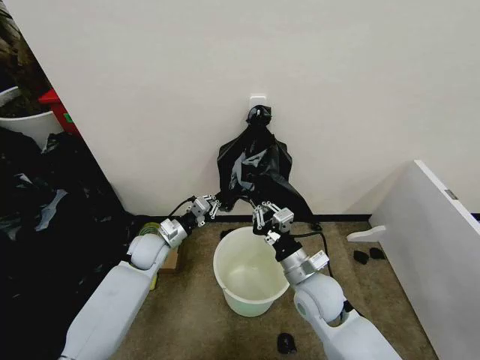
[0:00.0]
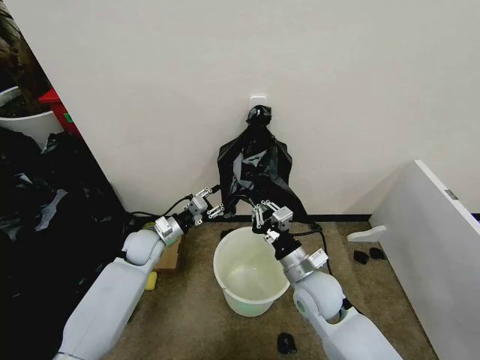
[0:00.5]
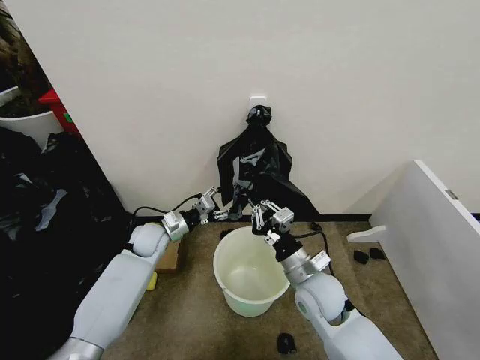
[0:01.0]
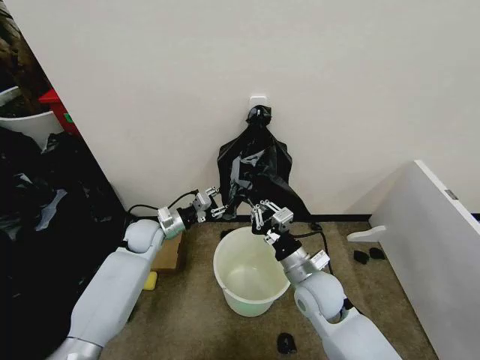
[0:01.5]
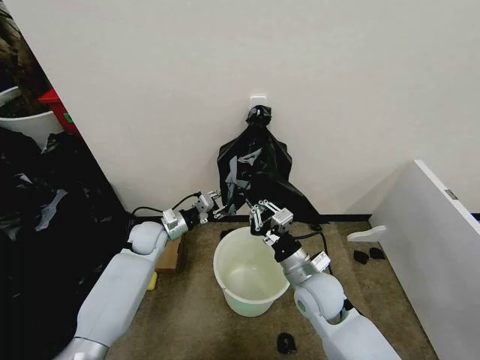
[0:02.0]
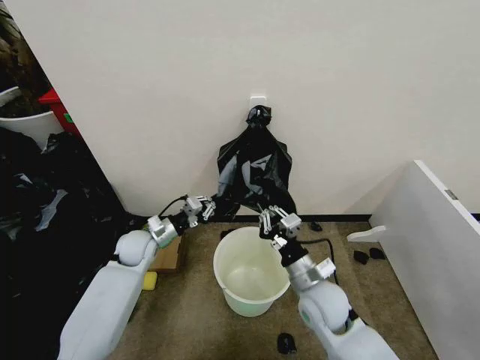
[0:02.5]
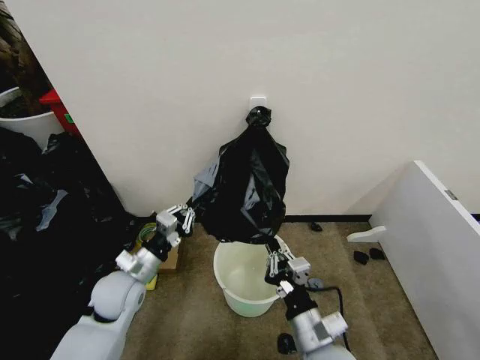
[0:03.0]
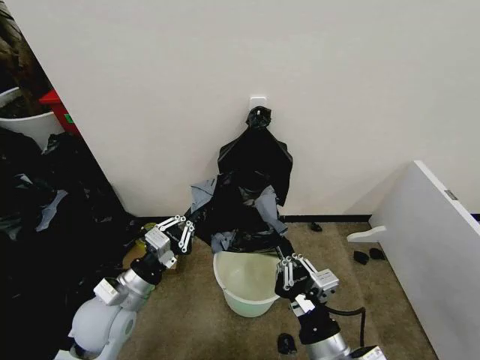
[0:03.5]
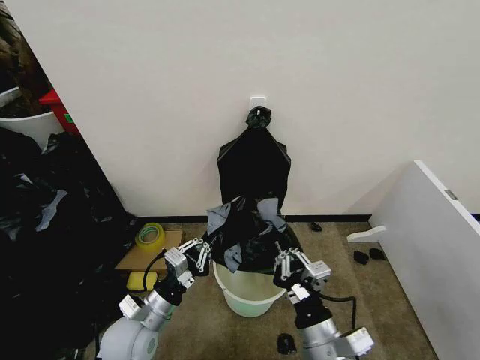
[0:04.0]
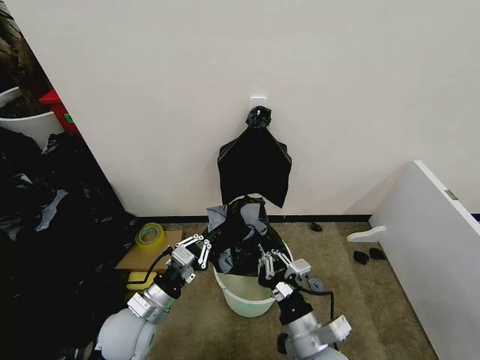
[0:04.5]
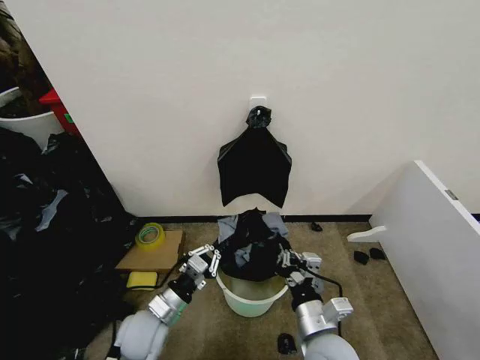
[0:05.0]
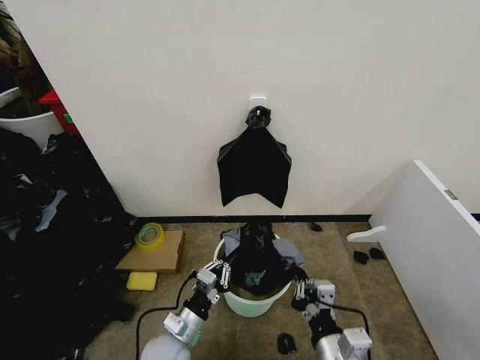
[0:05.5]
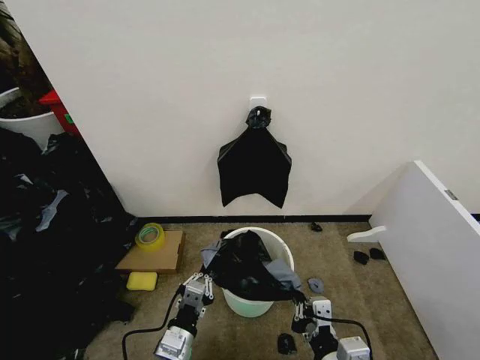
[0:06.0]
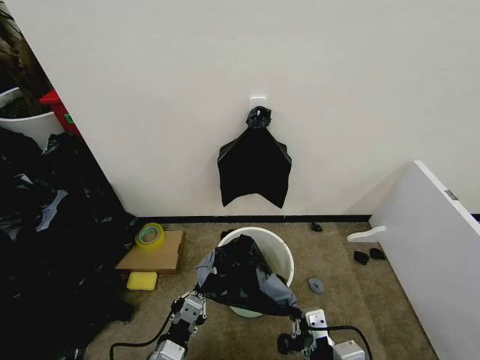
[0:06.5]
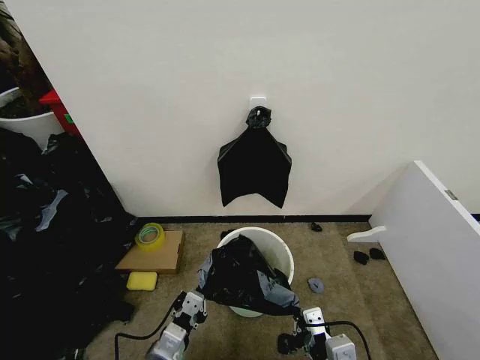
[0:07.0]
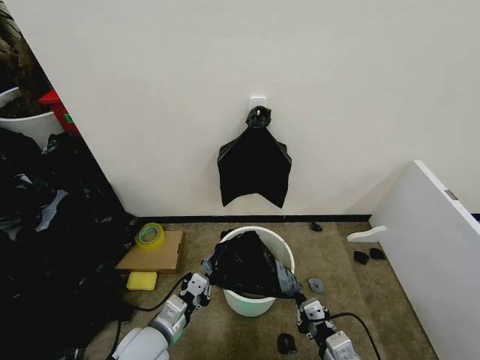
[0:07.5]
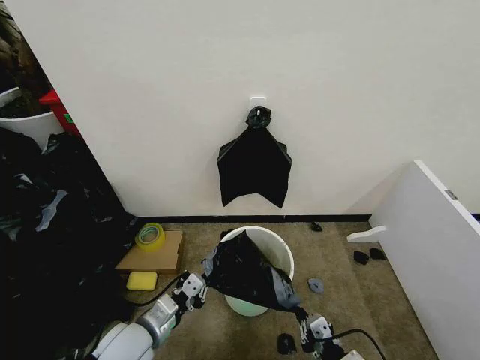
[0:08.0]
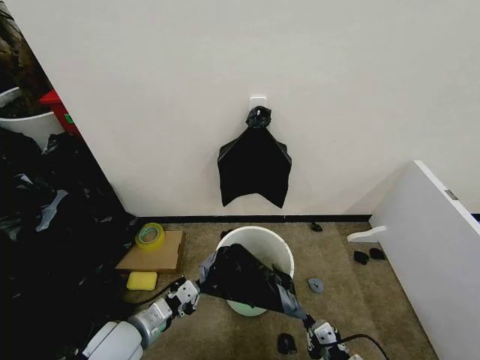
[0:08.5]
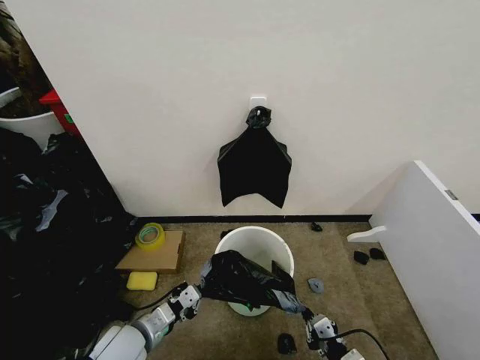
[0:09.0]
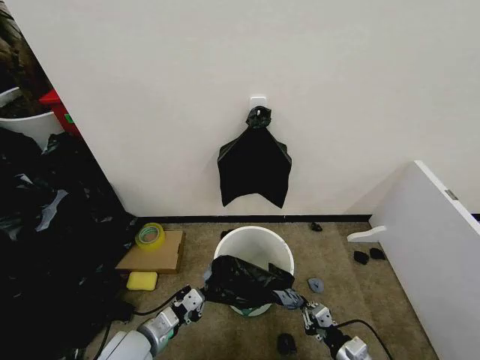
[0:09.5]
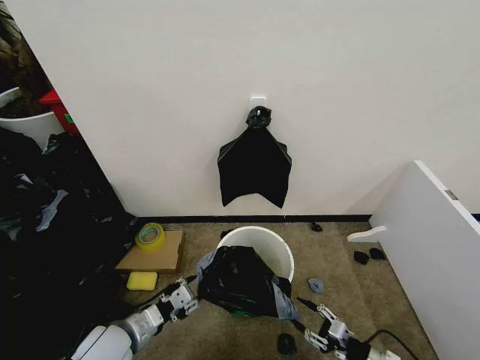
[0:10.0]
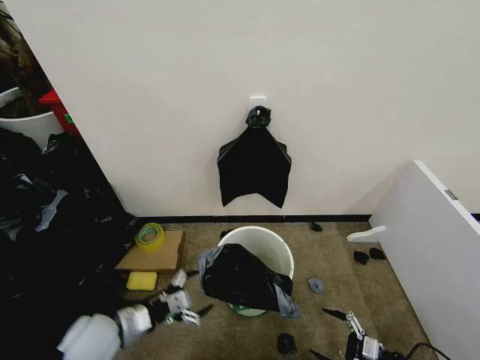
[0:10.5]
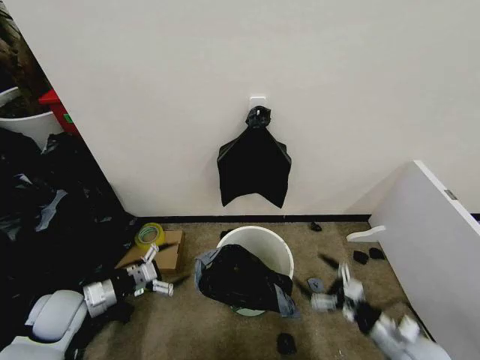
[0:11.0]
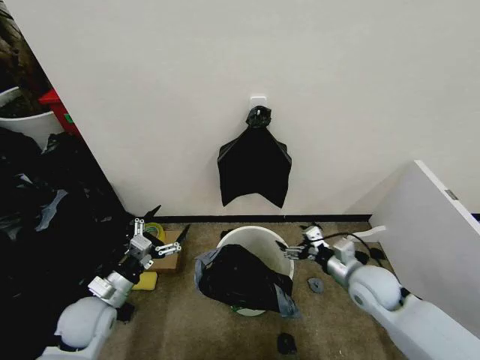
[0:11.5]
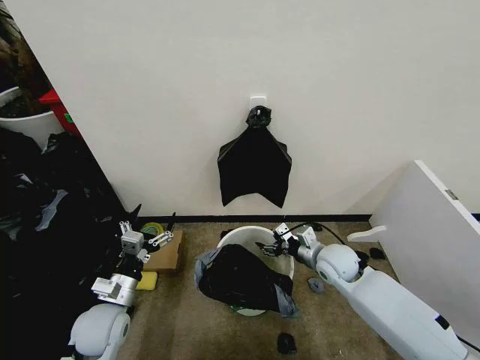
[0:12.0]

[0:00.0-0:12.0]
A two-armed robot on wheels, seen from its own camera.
Task of the whole recording: Place the garbage bag over the trash bin.
0.0 to 2.0 s: There are only small adjustments of the grippers.
2.0 to 4.0 s: The right gripper shifts about 15 cm backward; the left gripper is displaced backward by some 25 cm.
4.0 to 6.0 s: The right gripper shifts by some 5 cm; the left gripper moves backward, to the right and downward, about 10 cm.
6.0 to 8.0 s: The right gripper heads downward and to the right, covering about 10 cm; the left gripper is displaced to the left, forward and upward by about 10 cm.
8.0 to 10.0 s: The right gripper goes approximately 15 cm to the right and downward, and opens up. Meanwhile the left gripper opens its fingers.
10.0 to 12.0 s: The left gripper moves approximately 10 cm to the left and comes back, and opens. Meanwhile the right gripper heads forward, to the left and upward, covering roughly 30 cm.

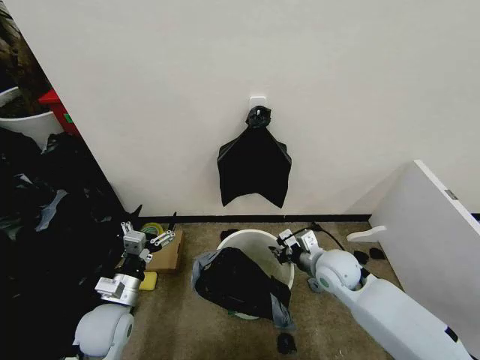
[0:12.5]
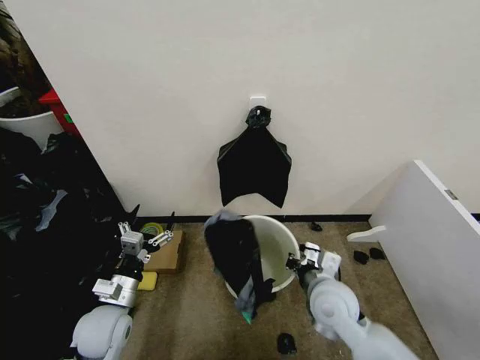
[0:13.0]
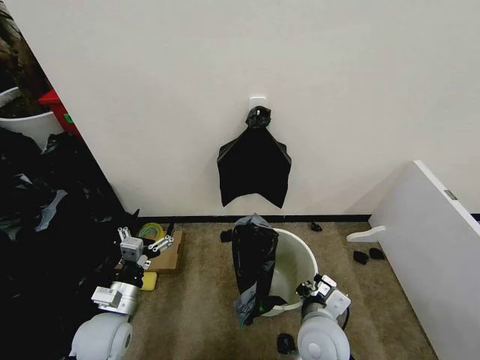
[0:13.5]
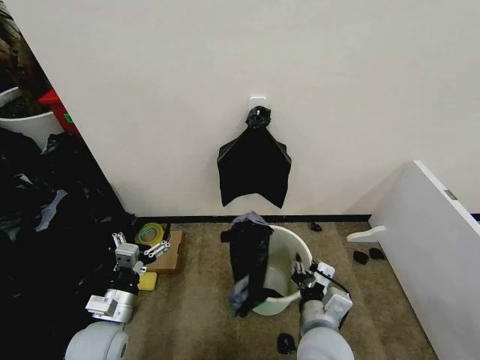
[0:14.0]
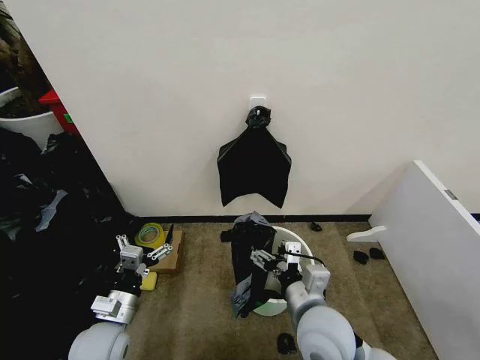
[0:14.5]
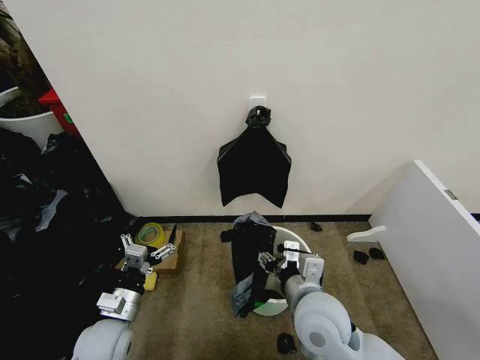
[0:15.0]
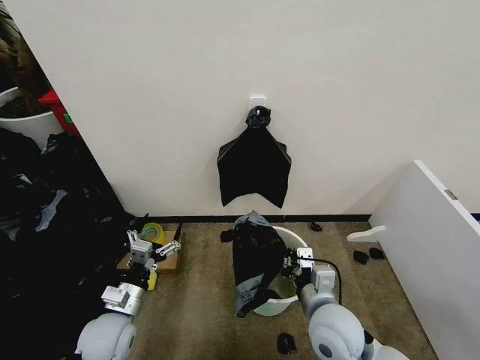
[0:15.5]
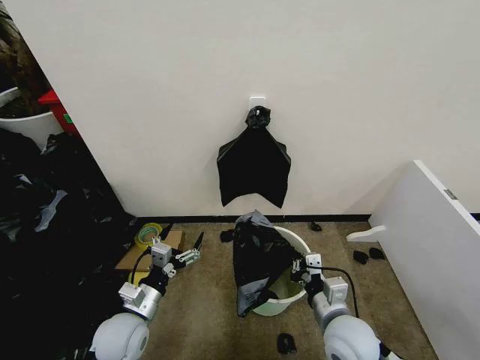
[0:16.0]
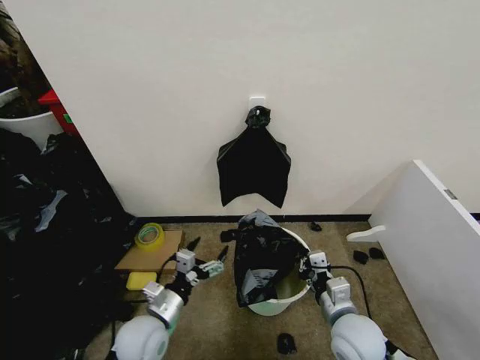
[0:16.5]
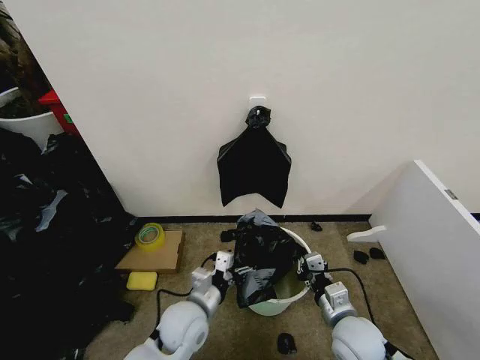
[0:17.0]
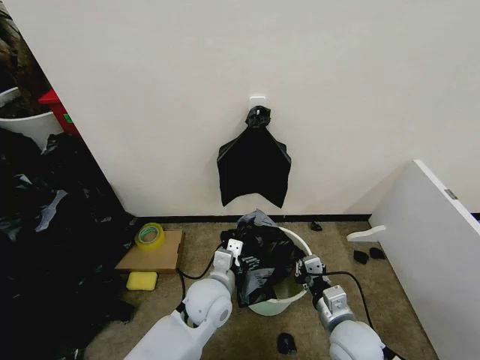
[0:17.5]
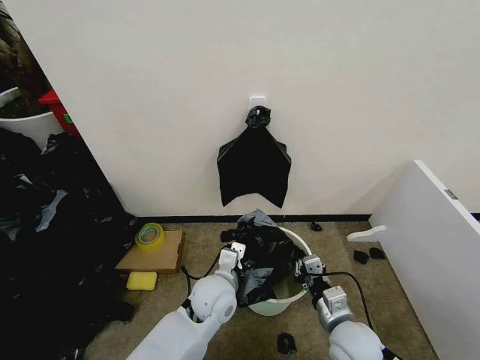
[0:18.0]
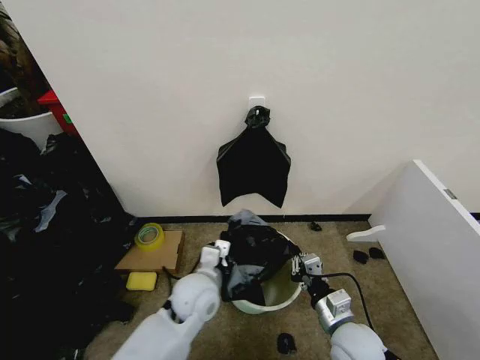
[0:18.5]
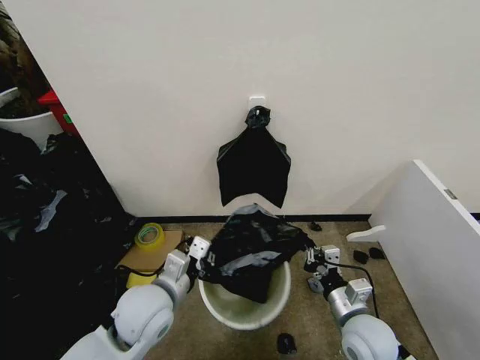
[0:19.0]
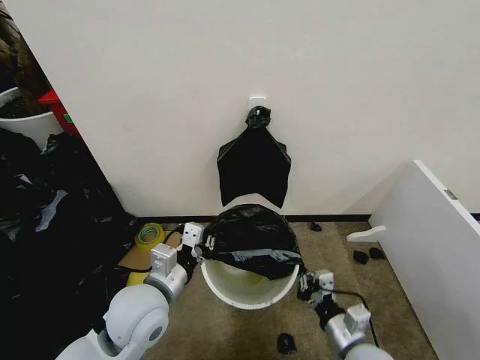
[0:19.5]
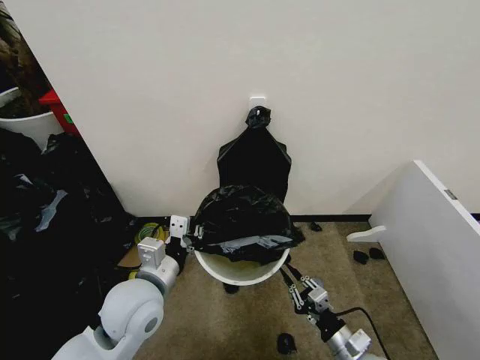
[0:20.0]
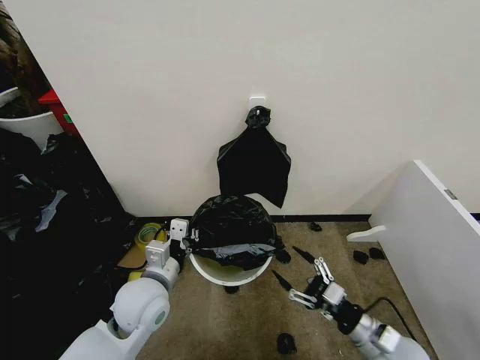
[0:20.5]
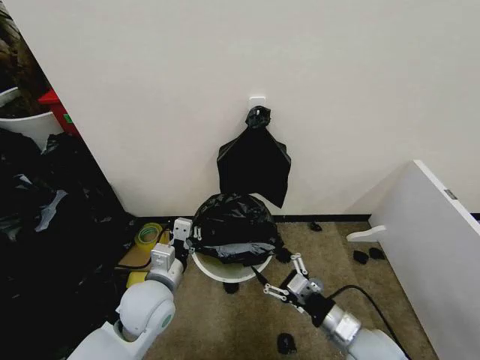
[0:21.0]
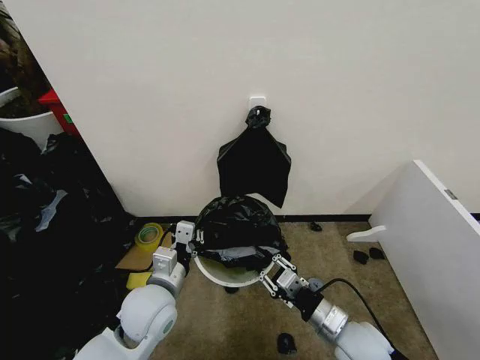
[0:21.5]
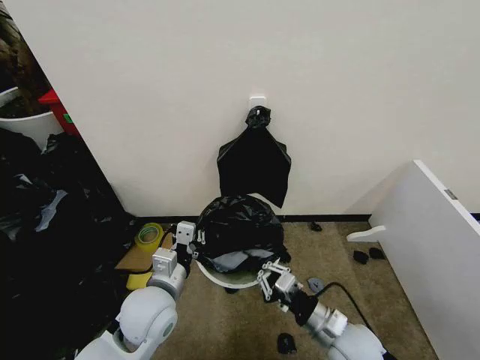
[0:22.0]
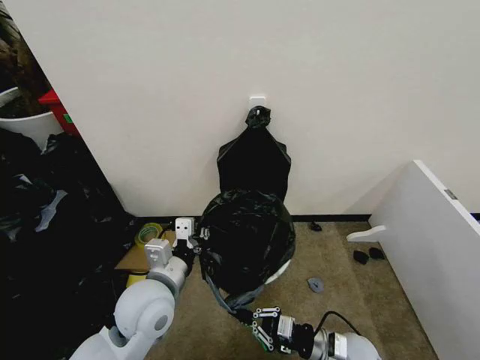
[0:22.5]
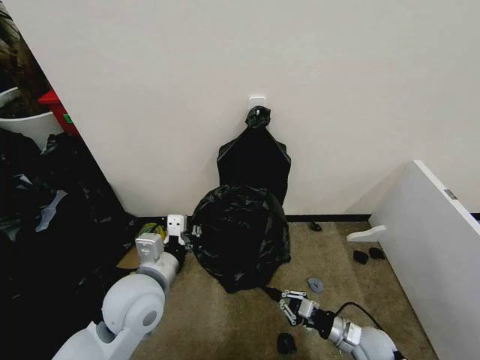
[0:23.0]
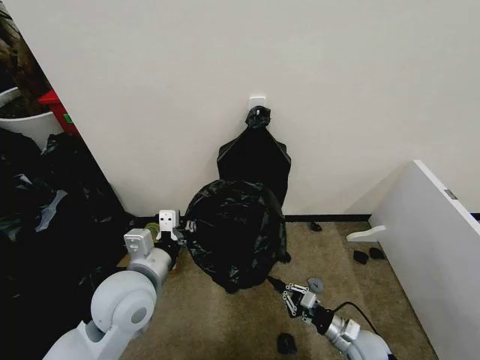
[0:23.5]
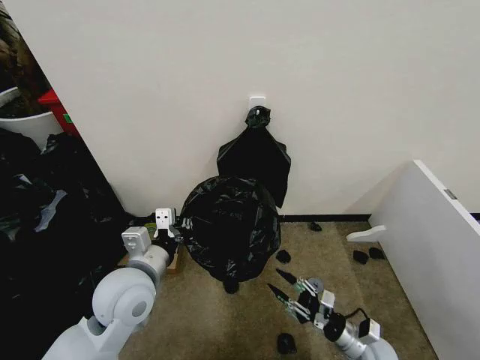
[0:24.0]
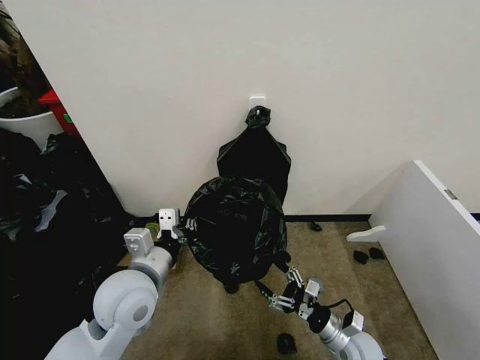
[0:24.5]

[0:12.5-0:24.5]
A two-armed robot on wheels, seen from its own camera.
Task of the whole recording: Place the garbage bag over the trash bin.
12.5 to 14.5 s: The right gripper travels backward and to the left by about 15 cm, and opens.
14.5 to 16.5 s: The left gripper is displaced to the right by some 10 cm. The right gripper is displaced to the right and downward by about 10 cm, and closes up.
16.5 to 18.5 s: The left gripper shifts about 15 cm to the right and forward, and closes.
18.5 to 20.5 s: The left gripper is displaced to the left and upward by approximately 10 cm. Meanwhile the right gripper heads to the right, covering some 10 cm, and opens its fingers.
20.5 to 22.5 s: The right gripper goes about 10 cm to the left and downward, and closes its fingers.
22.5 to 24.5 s: The right gripper opens up.

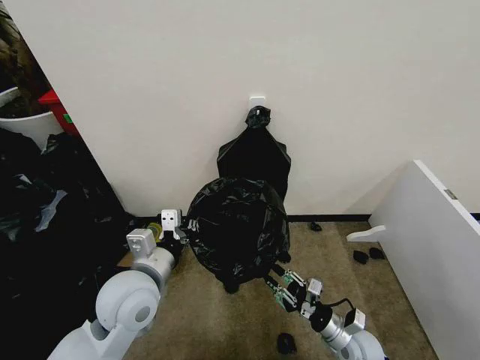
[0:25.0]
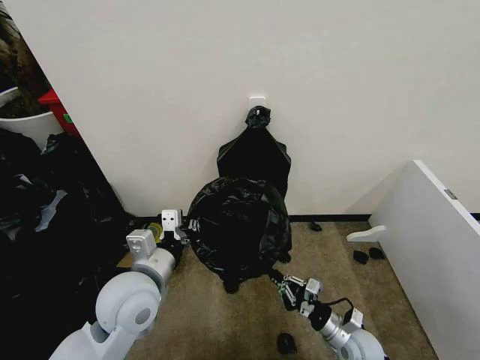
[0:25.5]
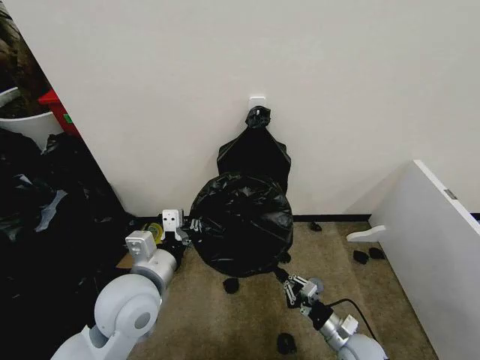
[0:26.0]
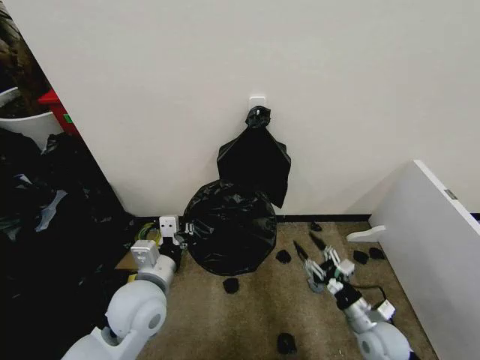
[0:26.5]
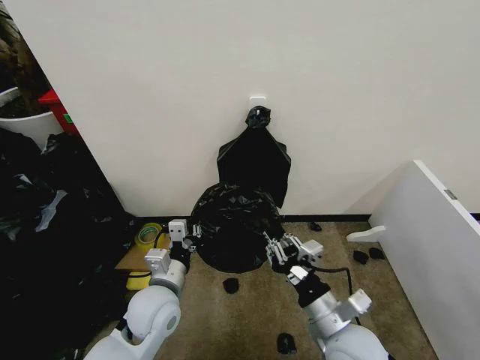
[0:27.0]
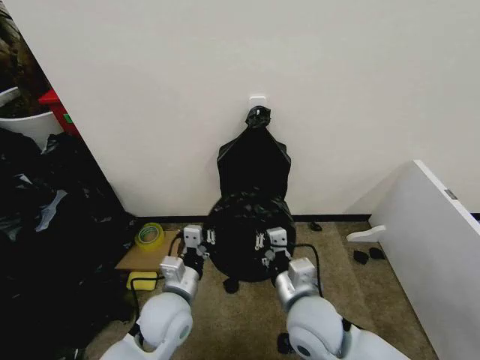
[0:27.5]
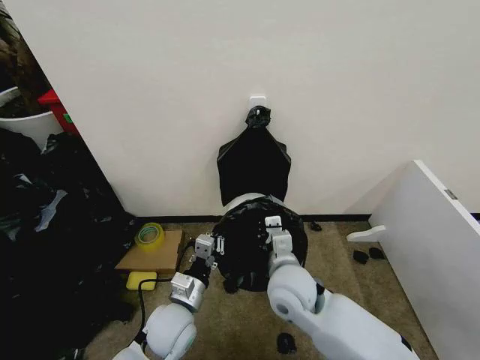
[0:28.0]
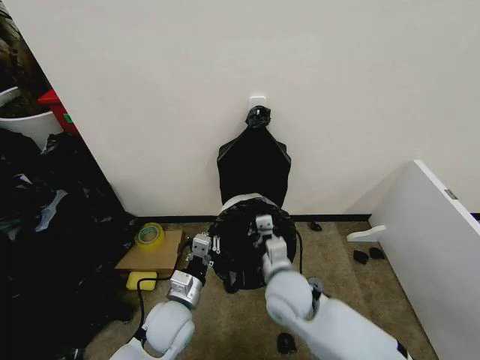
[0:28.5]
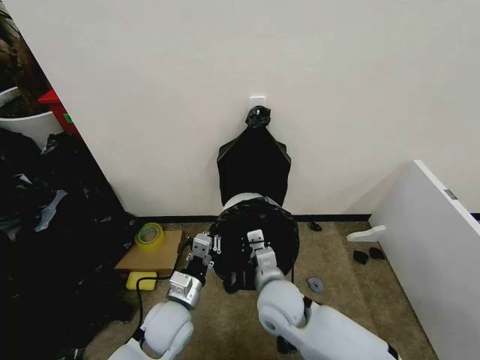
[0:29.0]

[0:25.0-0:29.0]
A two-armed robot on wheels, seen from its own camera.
Task of the whole recording: Place the garbage bag over the trash bin.
25.0 to 27.0 s: The left gripper is displaced downward by about 10 cm. The right gripper shifts about 20 cm upward and to the left.
27.0 to 29.0 s: The right gripper travels to the left and forward by some 15 cm, while the left gripper travels downward by about 5 cm.
